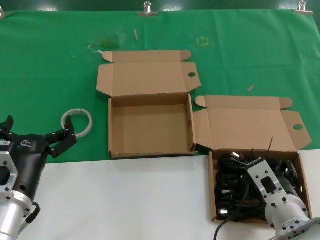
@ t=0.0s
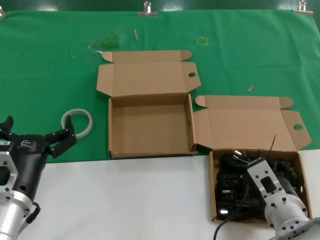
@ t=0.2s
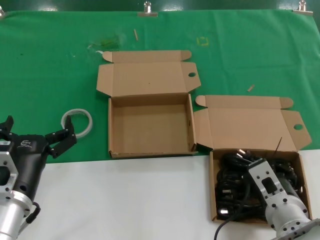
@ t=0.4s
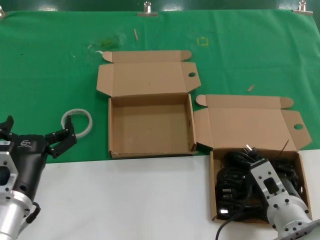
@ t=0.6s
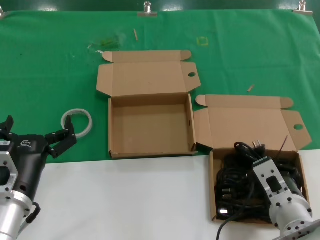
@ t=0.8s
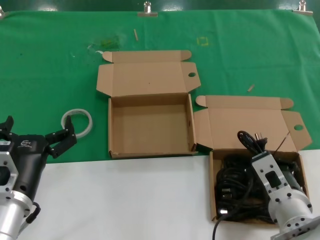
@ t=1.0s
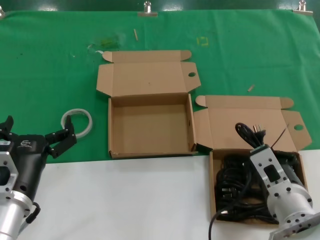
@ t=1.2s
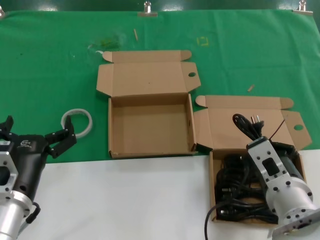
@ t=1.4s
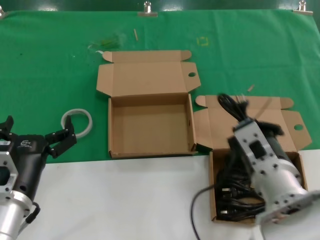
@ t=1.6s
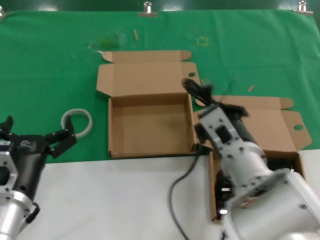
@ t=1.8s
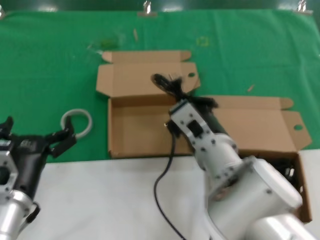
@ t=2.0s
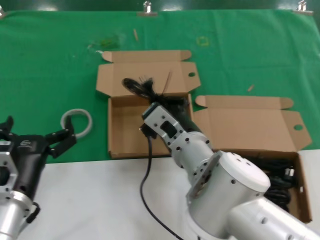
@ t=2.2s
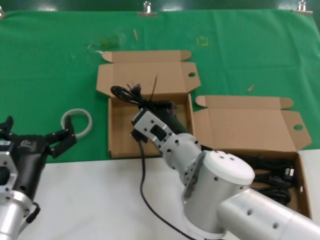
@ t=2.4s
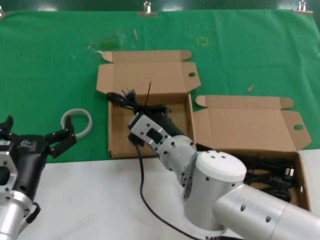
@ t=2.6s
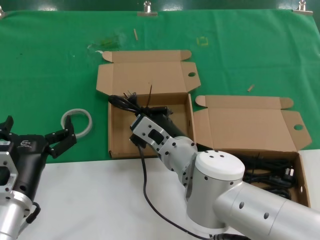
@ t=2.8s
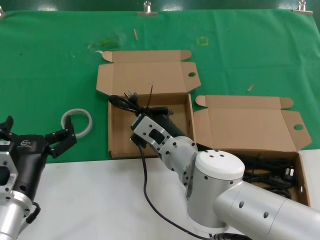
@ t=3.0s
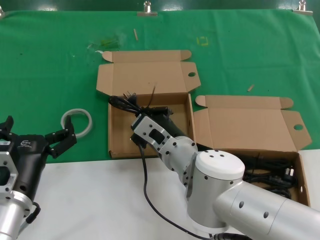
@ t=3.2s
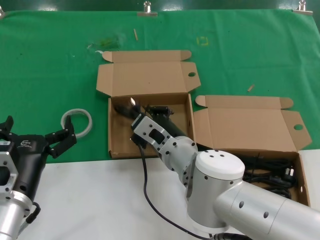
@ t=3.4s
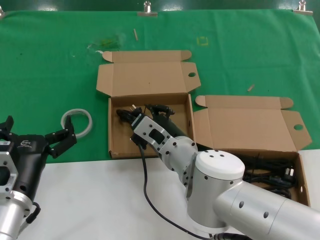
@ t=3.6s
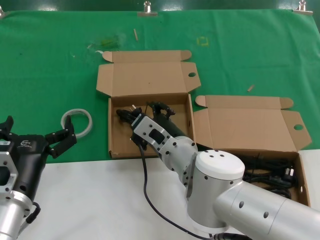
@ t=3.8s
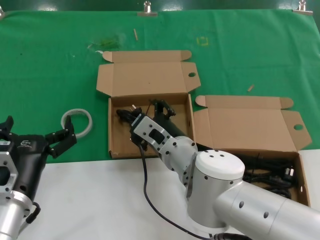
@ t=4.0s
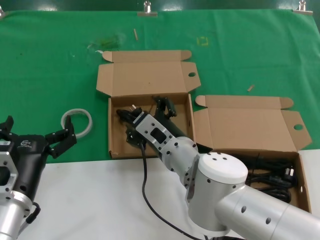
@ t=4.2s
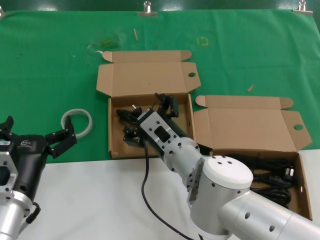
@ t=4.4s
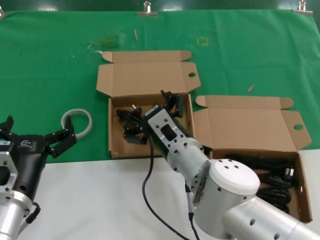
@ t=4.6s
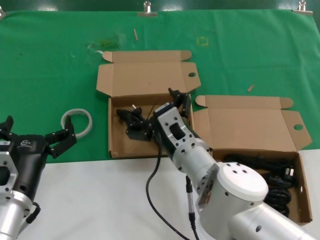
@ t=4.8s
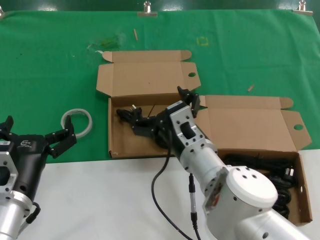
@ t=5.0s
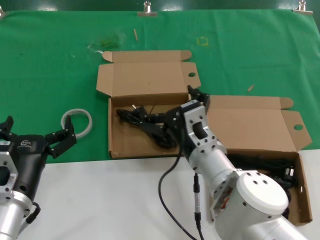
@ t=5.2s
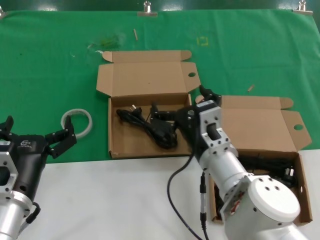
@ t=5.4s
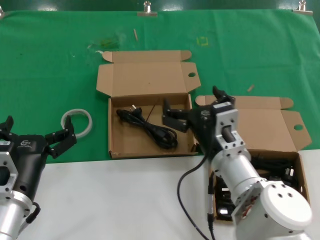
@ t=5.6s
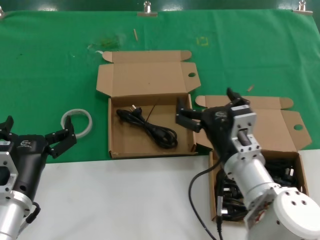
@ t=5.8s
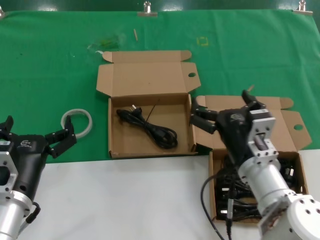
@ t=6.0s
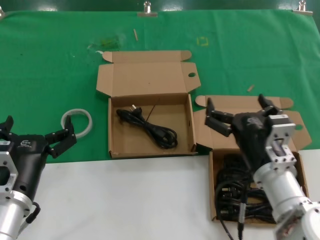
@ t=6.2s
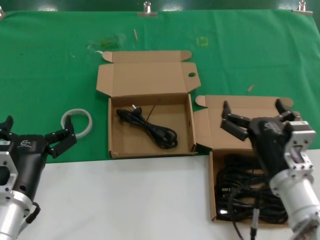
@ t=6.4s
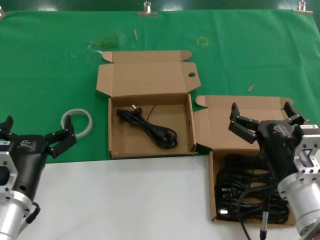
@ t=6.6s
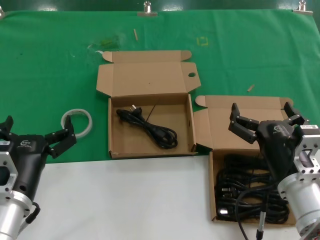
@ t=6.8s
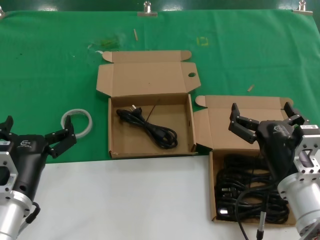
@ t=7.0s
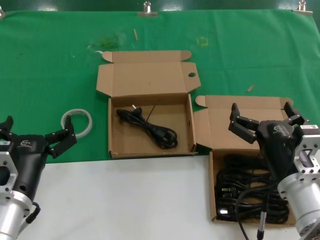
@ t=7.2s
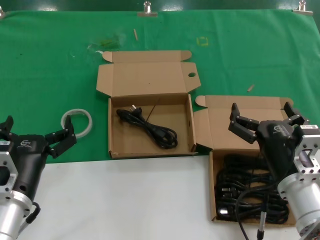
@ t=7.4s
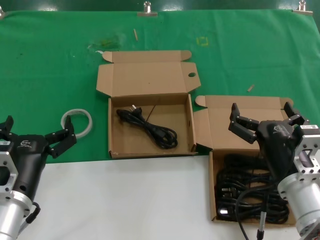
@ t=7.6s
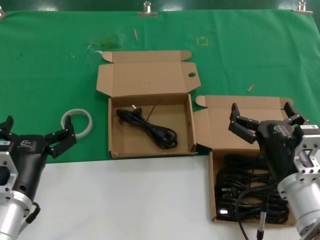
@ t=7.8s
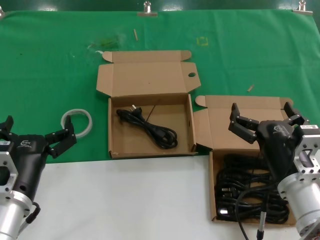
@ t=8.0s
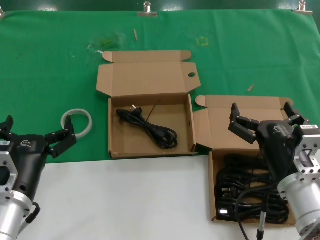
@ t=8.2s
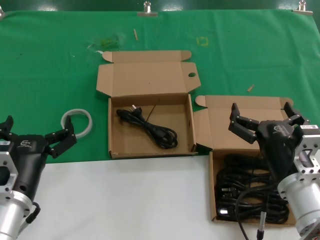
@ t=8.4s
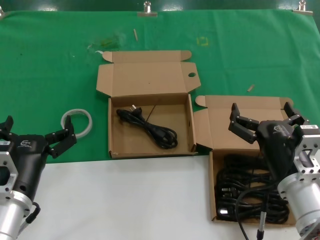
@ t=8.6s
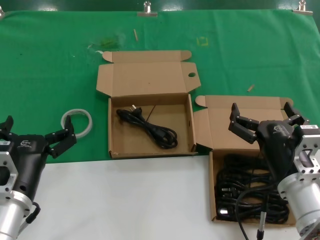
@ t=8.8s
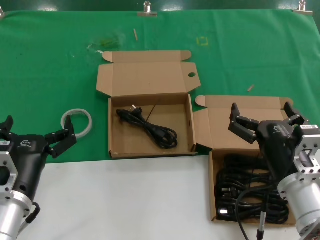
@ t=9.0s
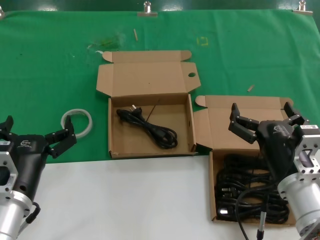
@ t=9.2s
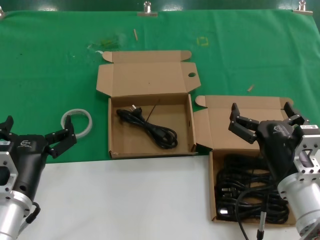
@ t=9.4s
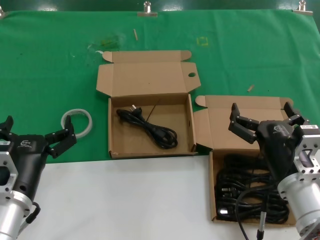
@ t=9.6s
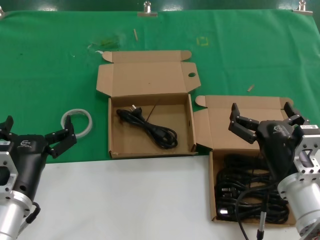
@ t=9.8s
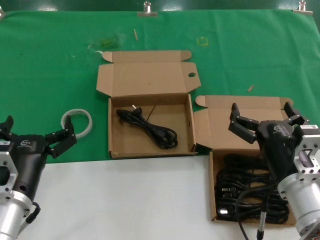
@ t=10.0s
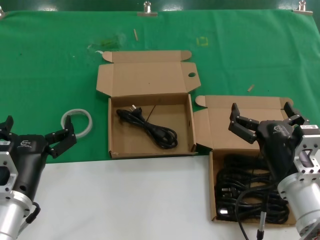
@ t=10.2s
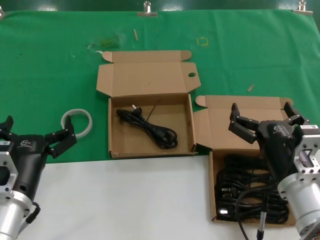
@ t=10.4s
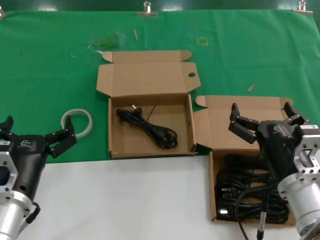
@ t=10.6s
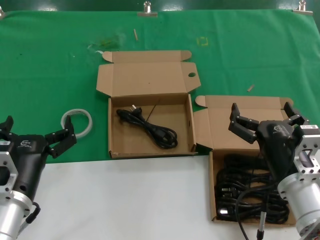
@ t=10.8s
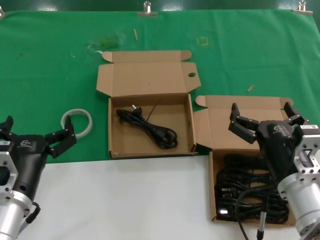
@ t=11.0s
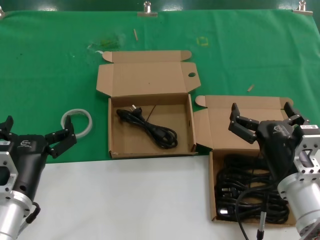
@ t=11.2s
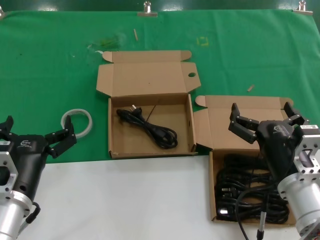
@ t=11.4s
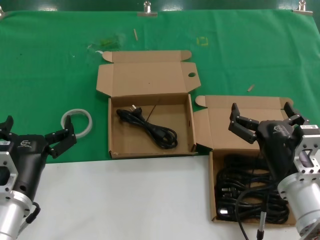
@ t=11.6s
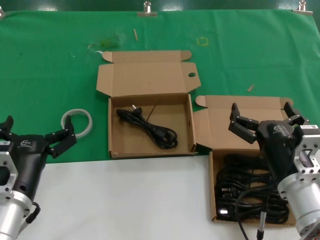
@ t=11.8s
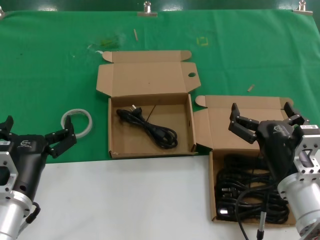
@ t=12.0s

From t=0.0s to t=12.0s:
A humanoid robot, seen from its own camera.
Task of the whole recording: take the parts from the box containing them and put them into an empty box.
Step, from t=0.2s to t=3.4s: Place the data cable in the another box.
From t=0.0s to t=1.6s: The right hand heads upward, covering roughly 10 cm.
From t=1.6s to t=3.0s: The right hand travels to the left and forward by about 15 cm.
From t=3.0s to t=4.4s: The hands stay close to where they were, moving slightly.
From t=4.4s to t=6.0s: The right hand is displaced to the right and backward by some 15 cm.
From t=6.0s to t=7.6s: The right hand travels to the right by approximately 5 cm.
From t=7.6s to t=12.0s: Both hands stay put.

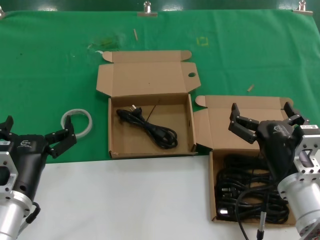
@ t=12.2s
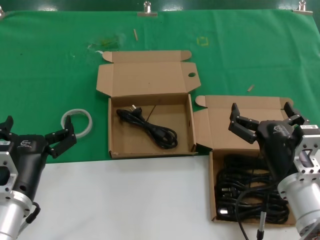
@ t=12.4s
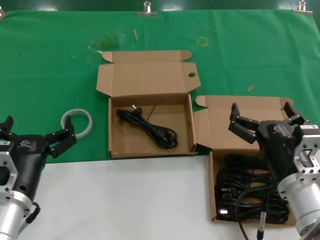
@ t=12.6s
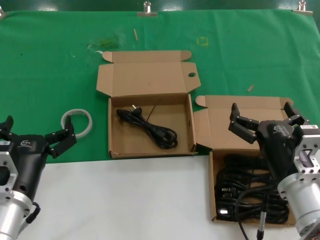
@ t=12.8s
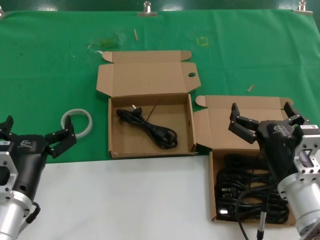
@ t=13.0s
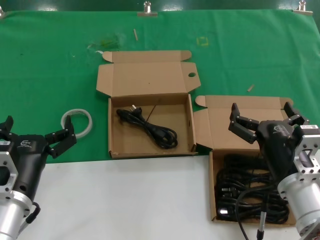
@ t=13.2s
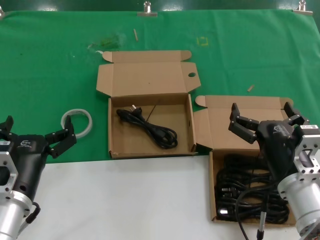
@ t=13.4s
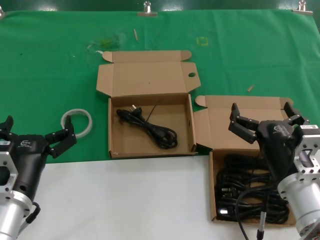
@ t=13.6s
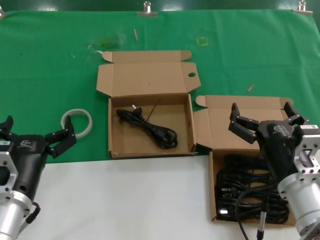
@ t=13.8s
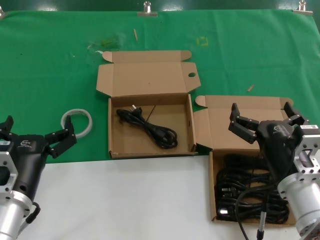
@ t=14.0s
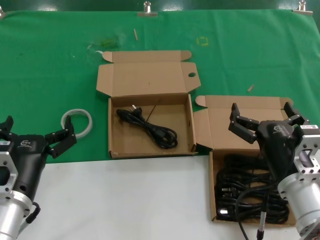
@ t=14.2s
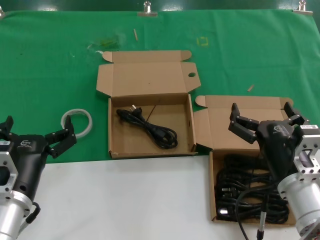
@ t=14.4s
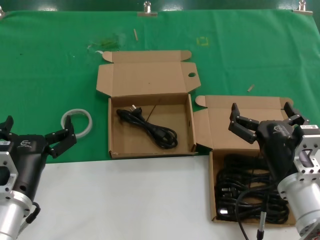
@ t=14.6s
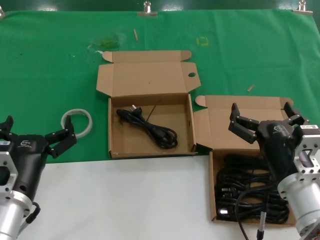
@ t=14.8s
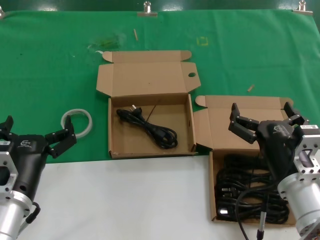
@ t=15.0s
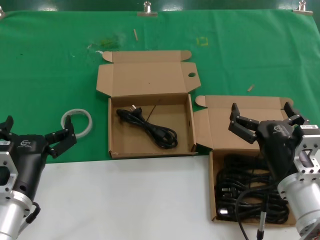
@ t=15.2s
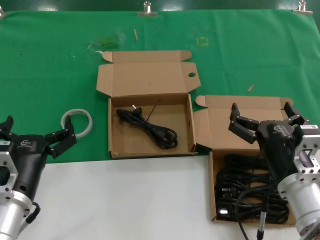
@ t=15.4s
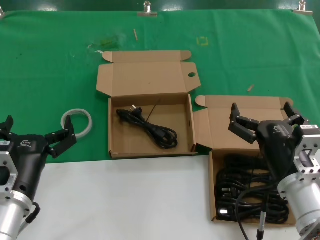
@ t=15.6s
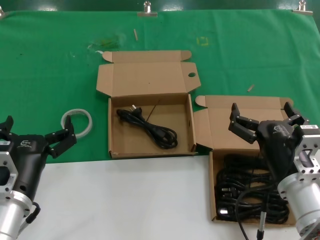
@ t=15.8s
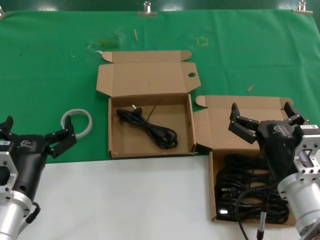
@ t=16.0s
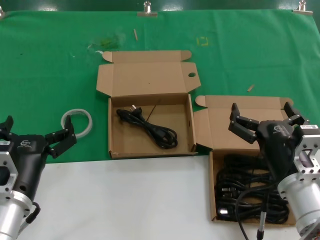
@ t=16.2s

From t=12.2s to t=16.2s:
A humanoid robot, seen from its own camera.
Task of the whole recording: take the parts from the box containing them and put them into an empty box.
From t=12.2s to t=16.2s: The two hands keep their place.
